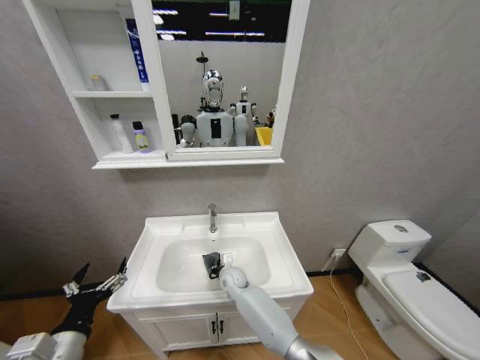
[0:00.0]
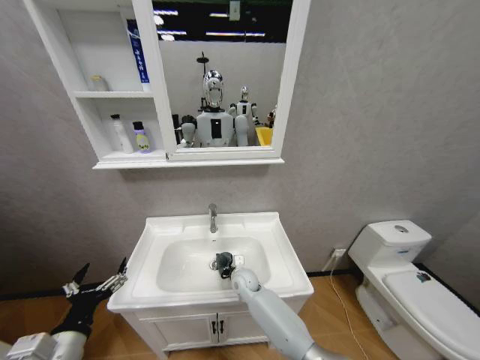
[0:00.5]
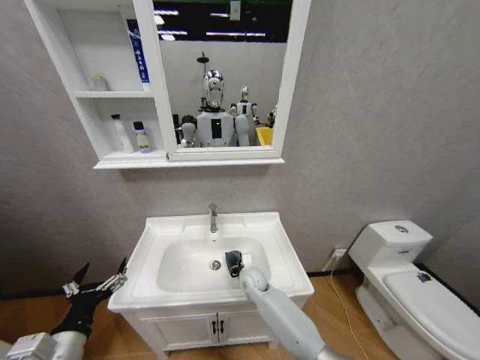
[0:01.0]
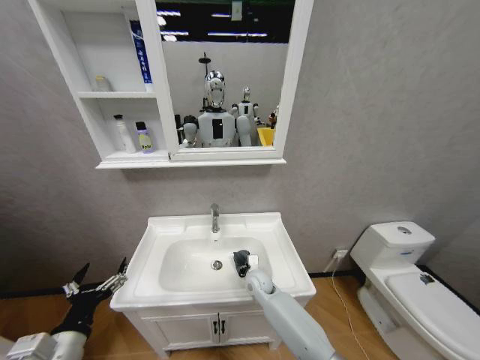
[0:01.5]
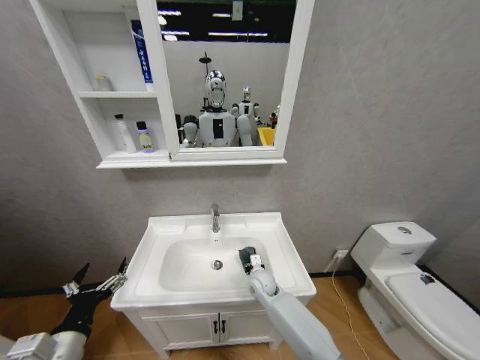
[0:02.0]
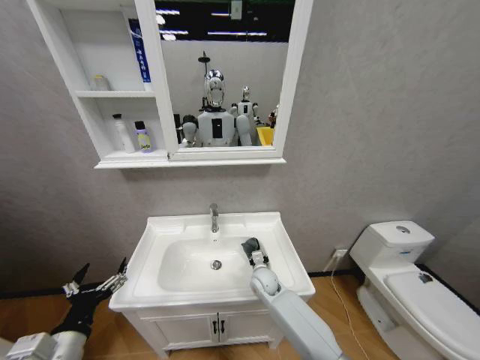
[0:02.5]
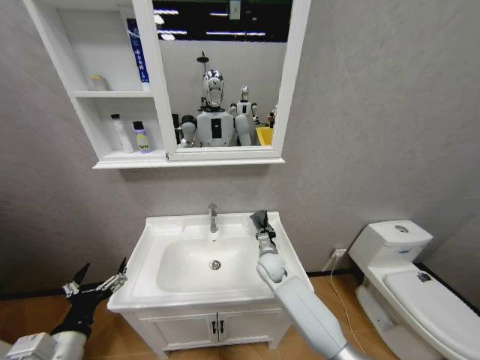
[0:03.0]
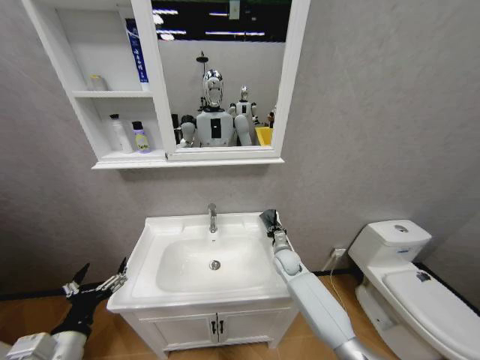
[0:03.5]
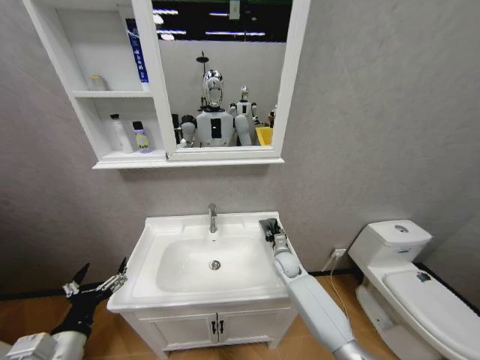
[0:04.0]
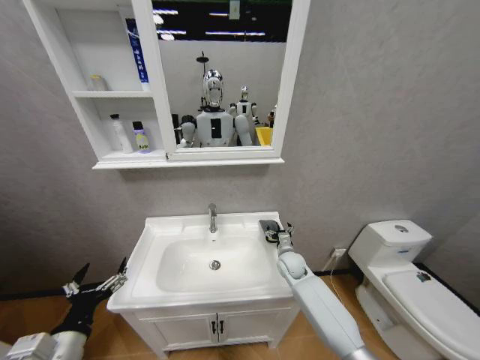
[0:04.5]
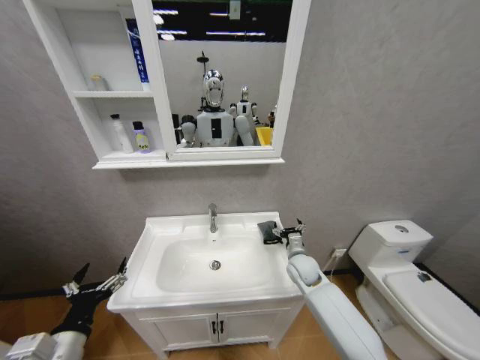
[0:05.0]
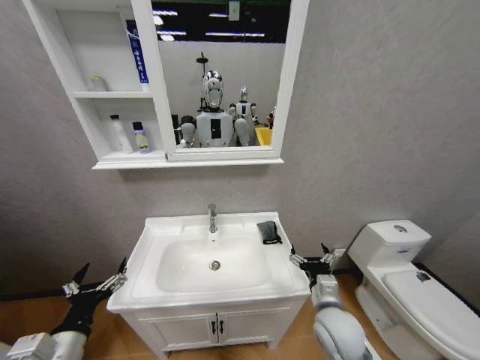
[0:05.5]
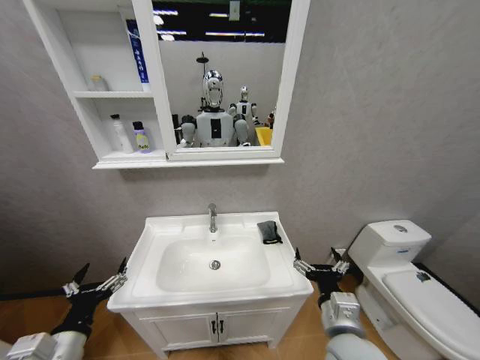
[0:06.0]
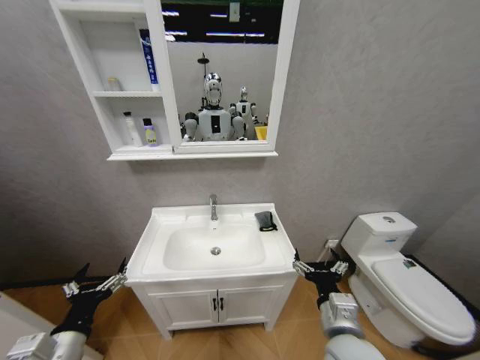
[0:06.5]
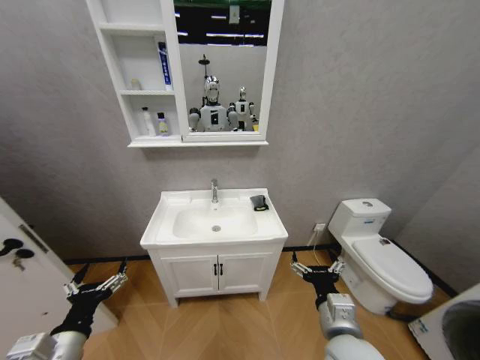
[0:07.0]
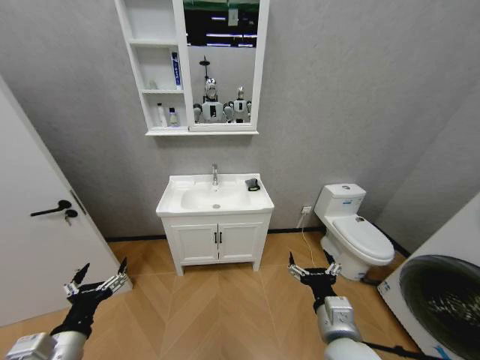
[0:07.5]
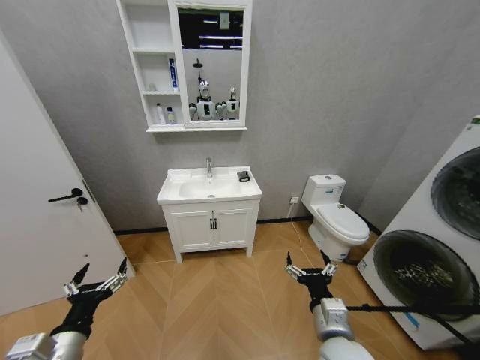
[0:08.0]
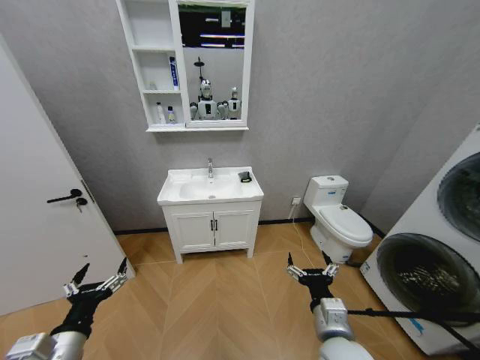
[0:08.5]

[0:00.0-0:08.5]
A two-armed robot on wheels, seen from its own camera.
Task of the whole recording: Move facial cleanser and shampoo from washbasin to cabinet, then wipe washbasin with towel.
0:00.0 to 0:02.0: The right gripper moves to the right, about 10 cm.
0:02.0 to 0:04.0: The right gripper moves to the right and forward, about 10 cm, and opens its fingers.
0:04.0 to 0:06.5: The right gripper goes roughly 35 cm backward and upward, and opens its fingers.
